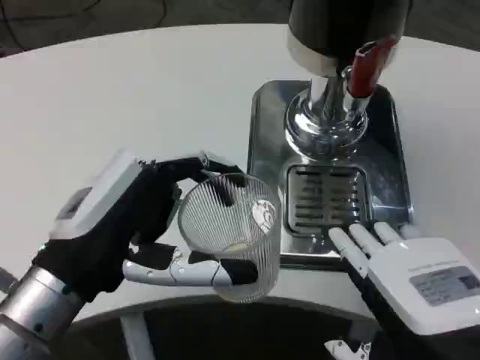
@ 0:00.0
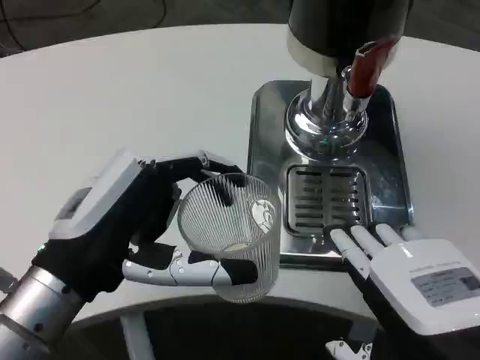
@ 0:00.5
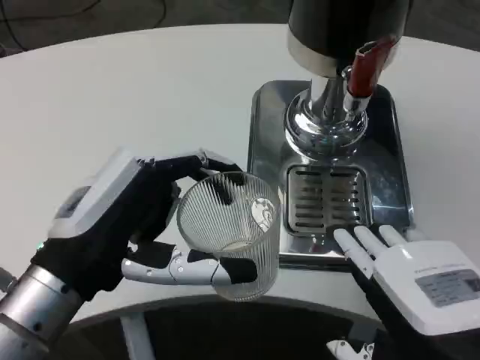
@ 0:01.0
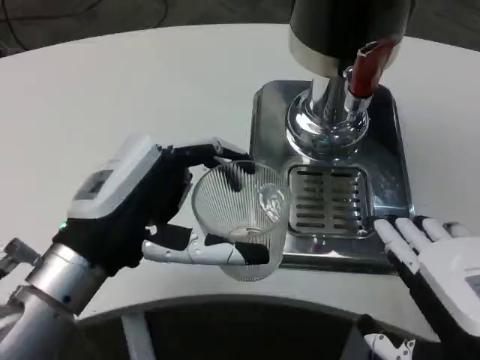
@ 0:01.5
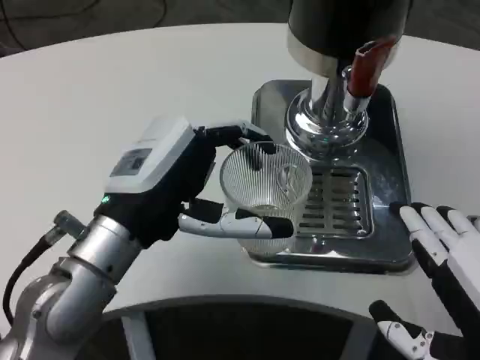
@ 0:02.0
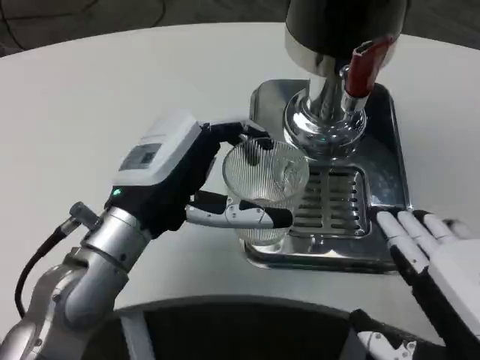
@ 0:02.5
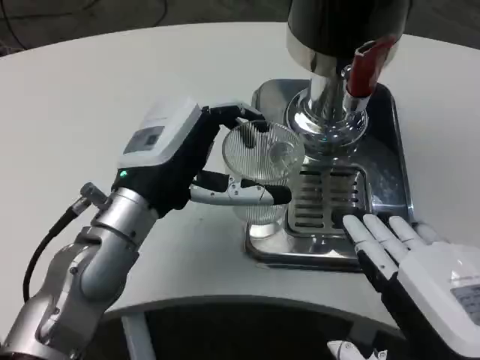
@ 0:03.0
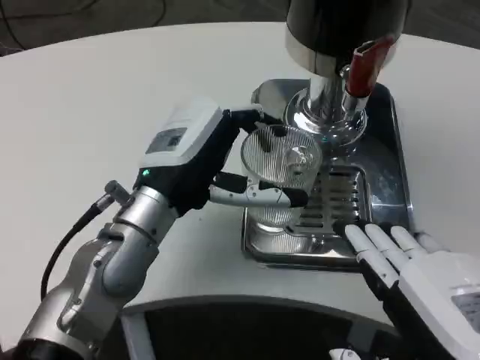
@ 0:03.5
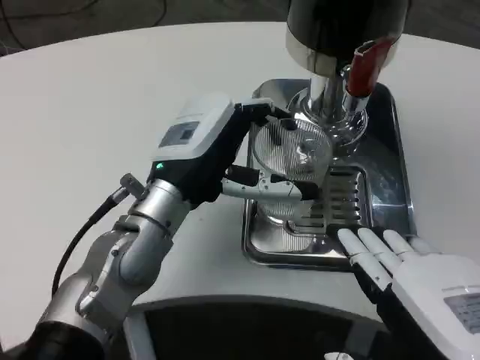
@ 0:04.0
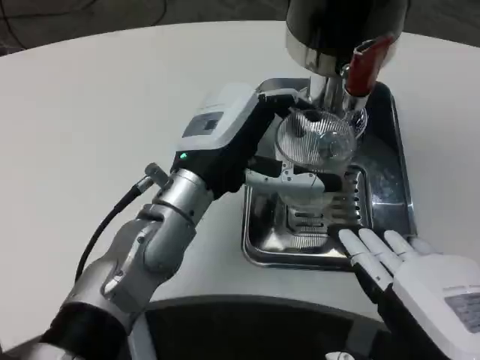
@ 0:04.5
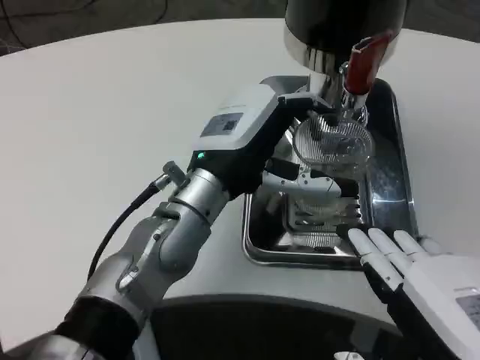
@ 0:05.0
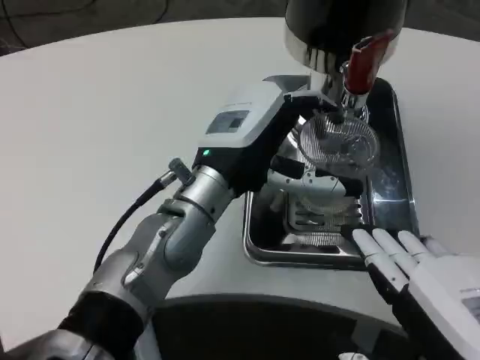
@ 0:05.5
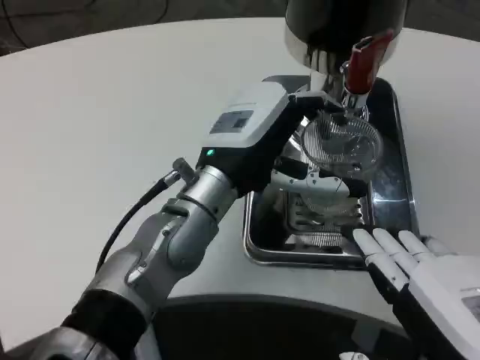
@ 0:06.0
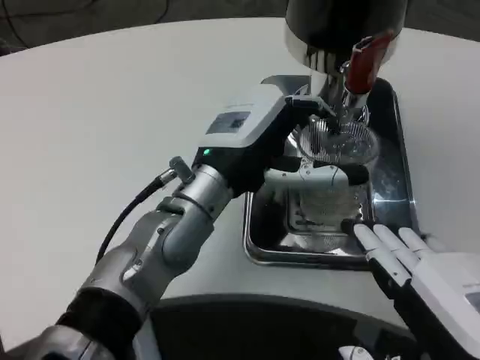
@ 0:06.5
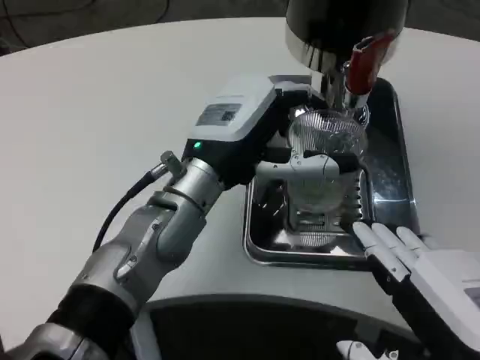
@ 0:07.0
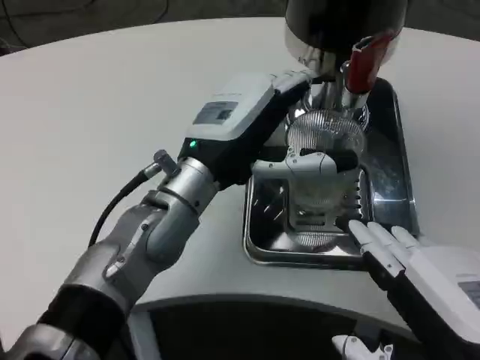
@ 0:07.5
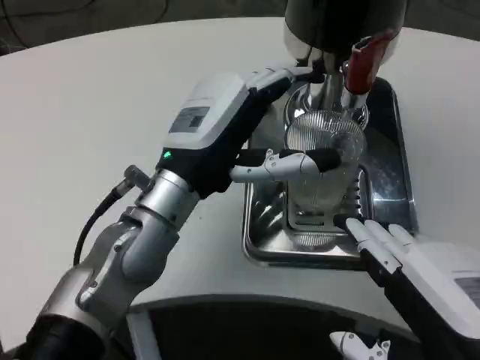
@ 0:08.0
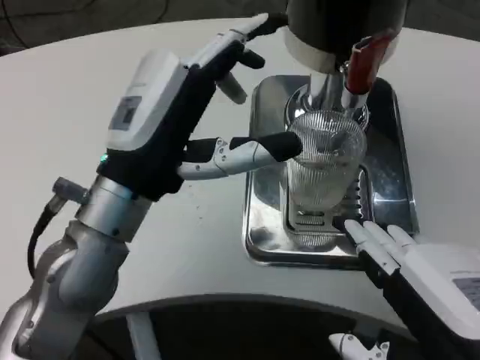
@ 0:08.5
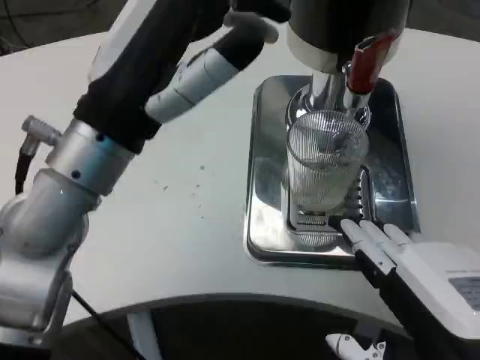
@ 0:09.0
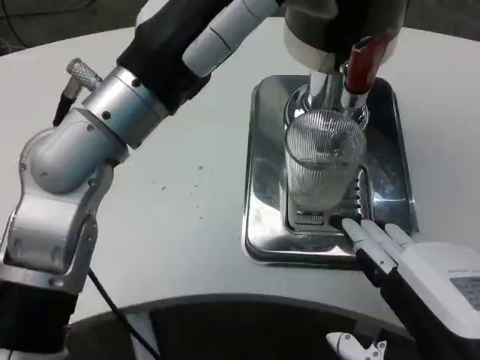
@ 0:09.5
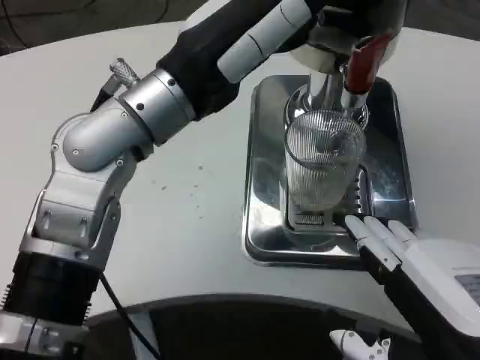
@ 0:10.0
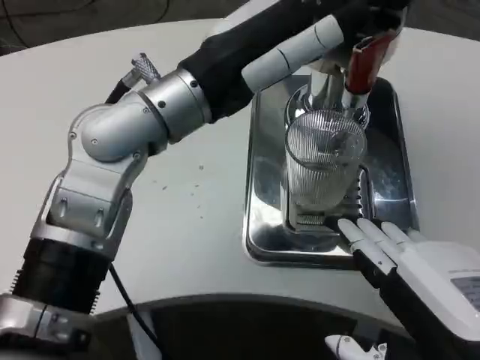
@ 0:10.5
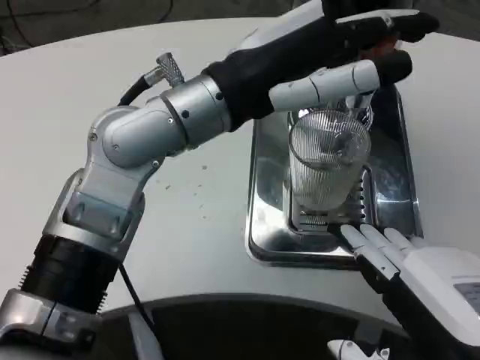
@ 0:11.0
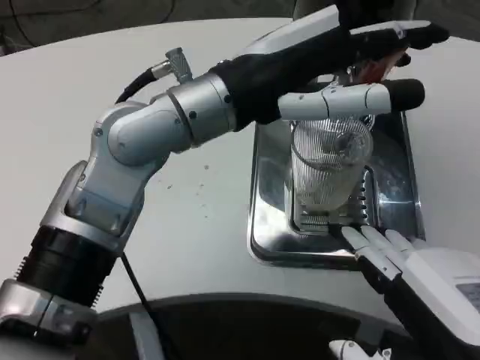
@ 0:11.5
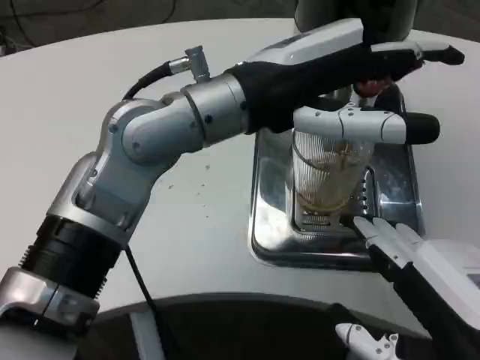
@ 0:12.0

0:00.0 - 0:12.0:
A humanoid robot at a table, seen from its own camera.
Task of the whole recording: Grasp the cup under the faucet to collect the drink, then remove the cup.
0:00.0 - 0:02.0: The left hand moves forward, some 5 cm.
0:02.0 - 0:04.0: The left hand travels forward by approximately 5 cm.
0:08.0 - 0:10.0: The left hand shifts roughly 10 cm upward.

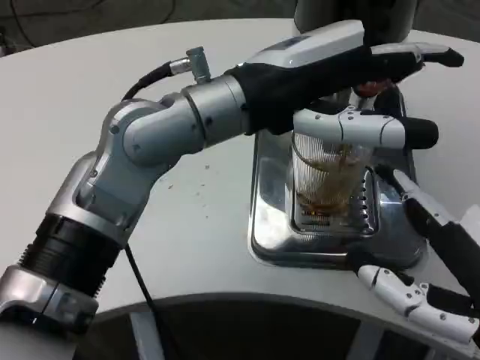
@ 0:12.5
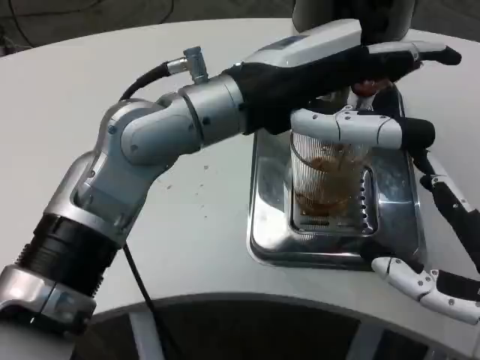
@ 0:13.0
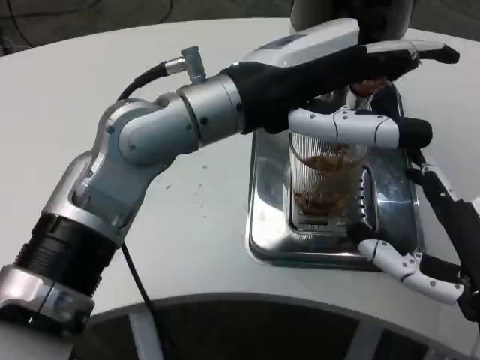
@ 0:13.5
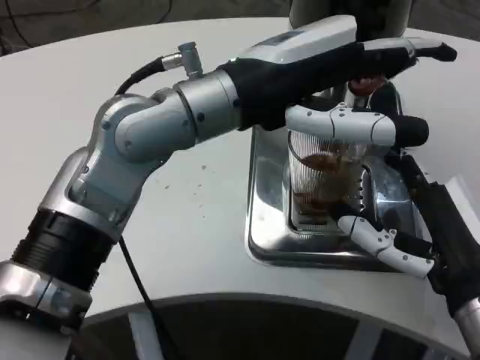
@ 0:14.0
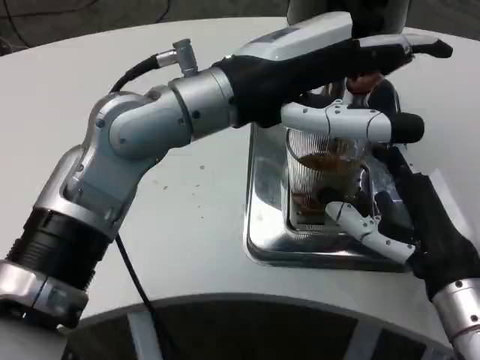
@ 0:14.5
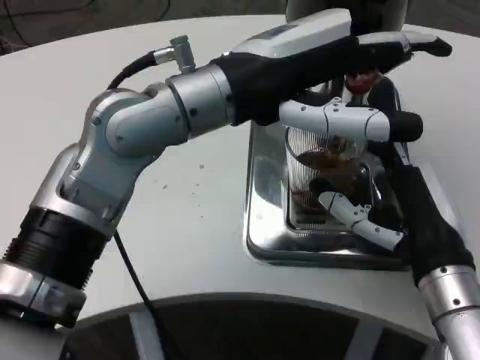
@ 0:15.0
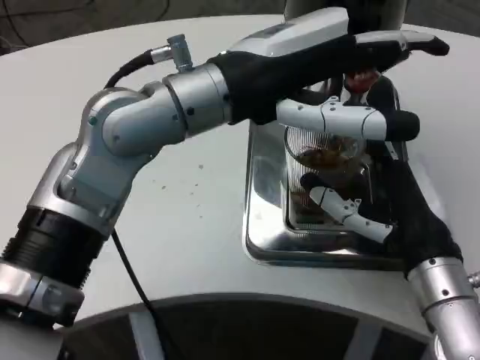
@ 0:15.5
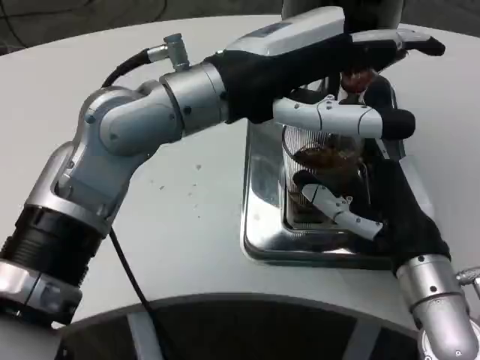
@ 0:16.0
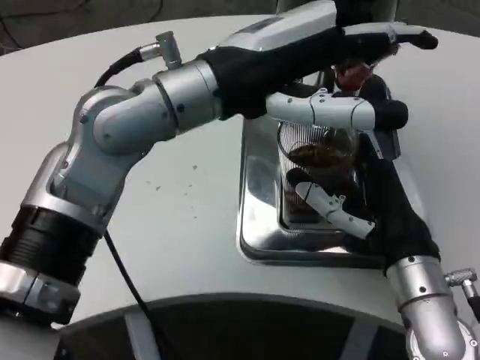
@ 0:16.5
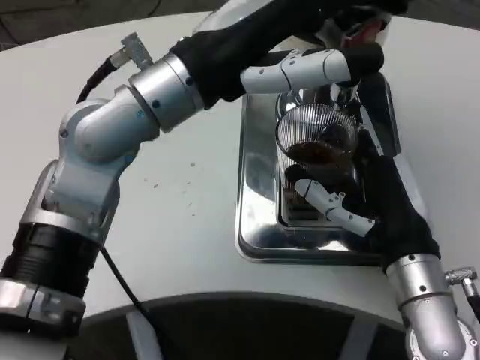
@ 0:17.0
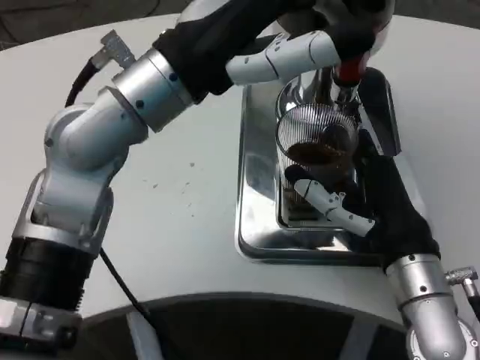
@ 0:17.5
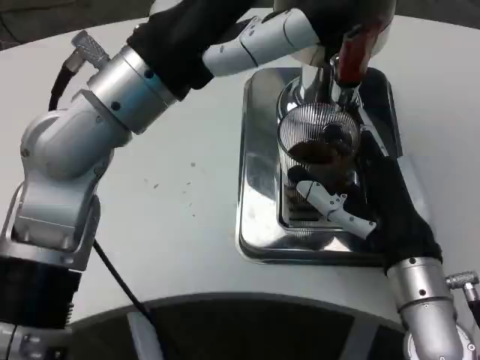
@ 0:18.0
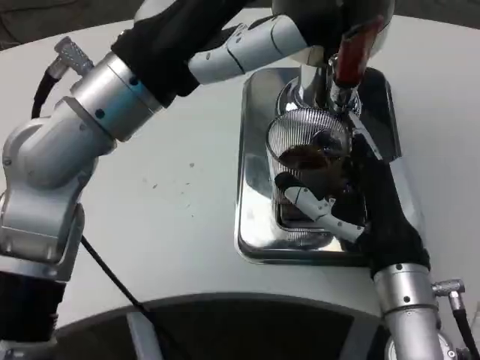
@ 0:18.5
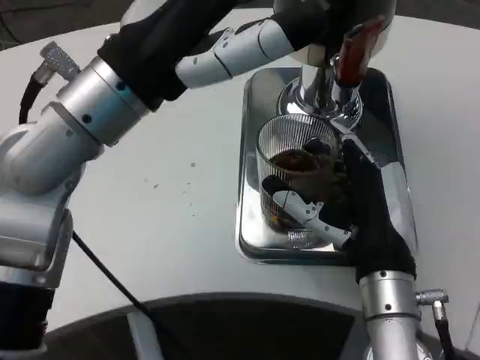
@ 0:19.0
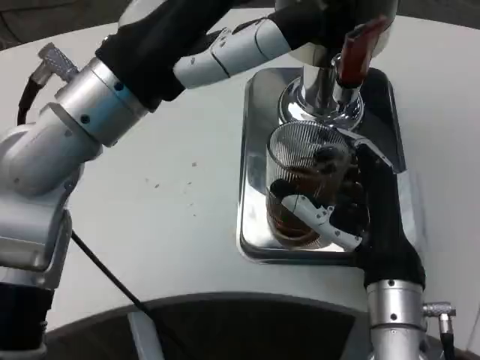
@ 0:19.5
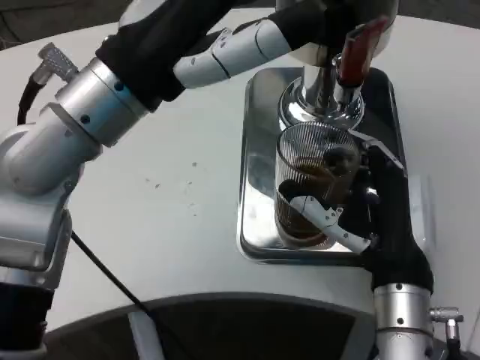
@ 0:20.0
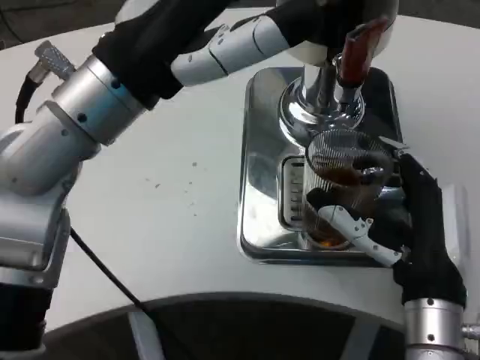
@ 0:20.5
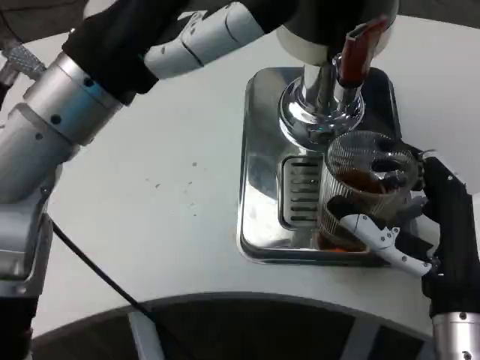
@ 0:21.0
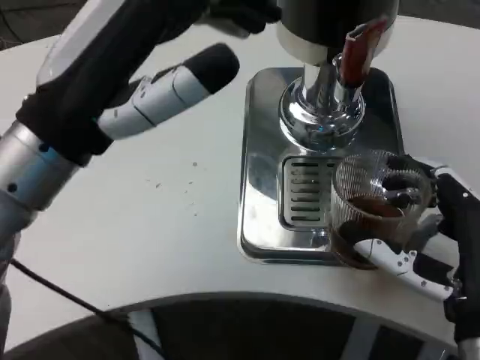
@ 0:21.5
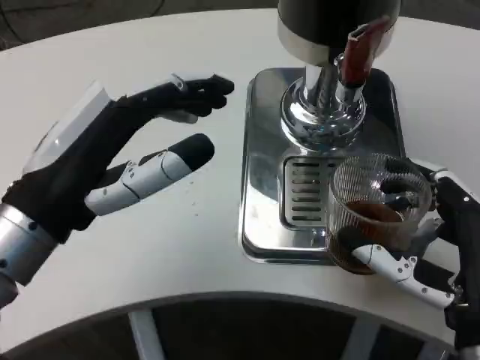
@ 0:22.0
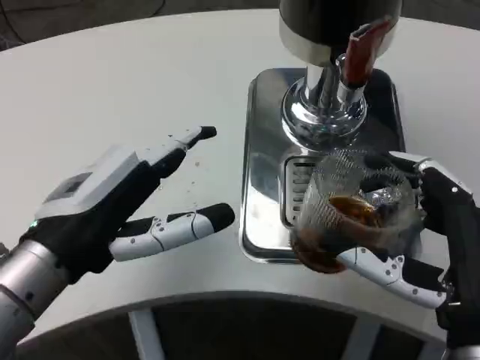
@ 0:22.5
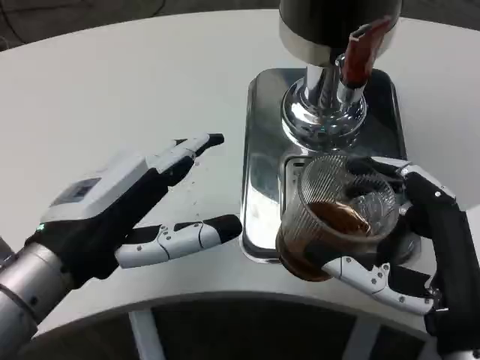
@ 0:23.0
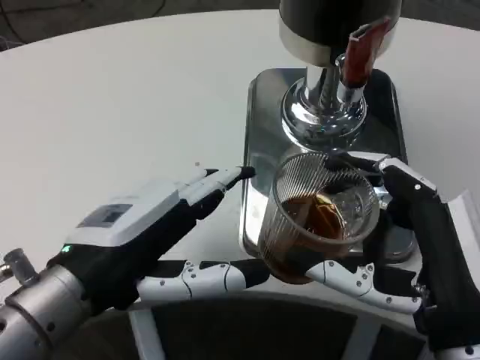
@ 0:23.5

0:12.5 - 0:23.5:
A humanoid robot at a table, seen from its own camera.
Task of the whole recording: Grasp the cup under the faucet to collect the drink, then remove the cup.
0:12.5 - 0:14.5: The right hand shifts approximately 10 cm forward and downward.
0:20.0 - 0:21.5: The left hand ends up roughly 5 cm from where it was. The right hand travels backward and to the right by some 10 cm.
0:21.5 - 0:23.5: The left hand travels downward by roughly 5 cm.

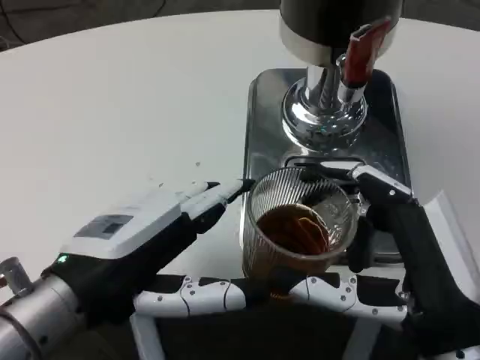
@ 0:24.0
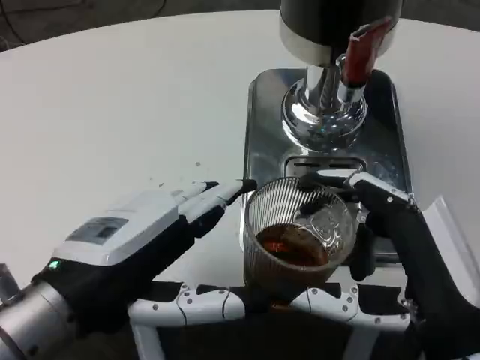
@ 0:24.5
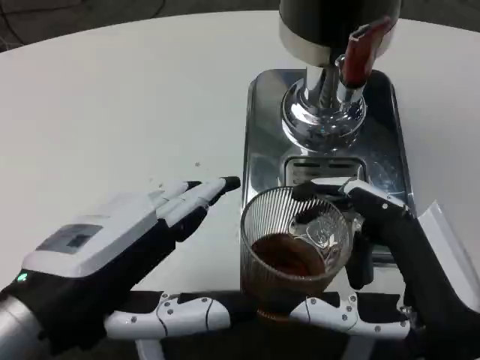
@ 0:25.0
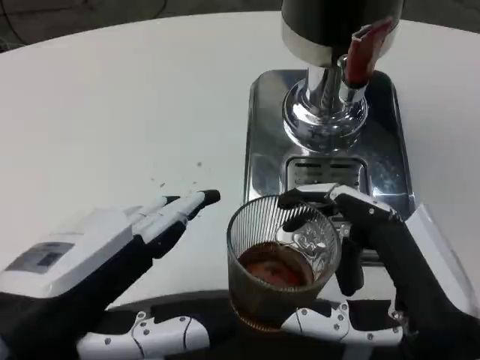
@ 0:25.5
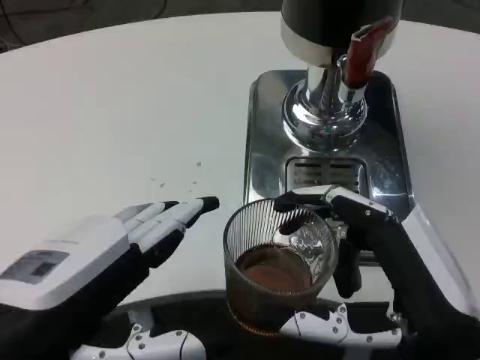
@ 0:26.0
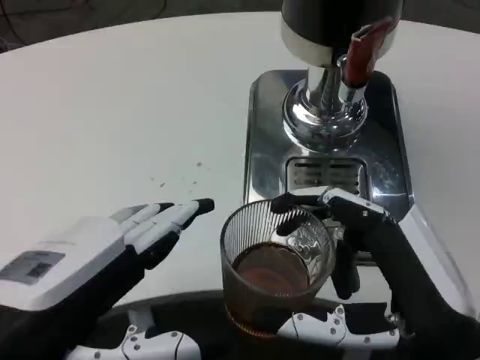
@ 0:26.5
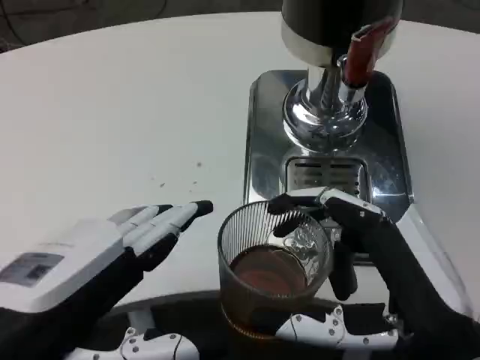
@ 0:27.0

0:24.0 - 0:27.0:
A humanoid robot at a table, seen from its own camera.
Task of the whole recording: Grasp the cup under the faucet to collect the drink, then remove the cup.
0:24.0 - 0:25.5: The left hand travels backward by roughly 5 cm.
0:25.5 - 0:27.0: Neither hand changes place.
